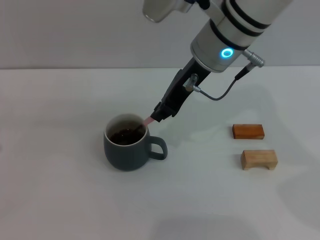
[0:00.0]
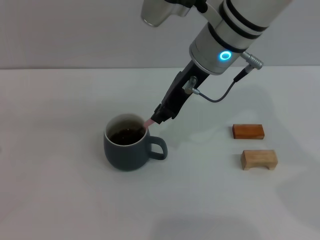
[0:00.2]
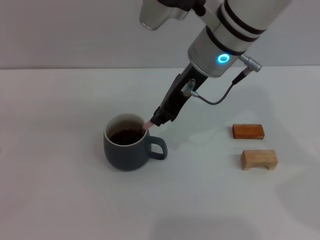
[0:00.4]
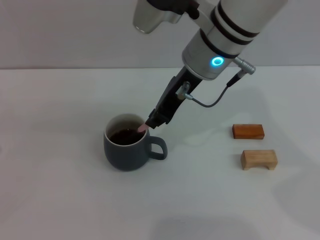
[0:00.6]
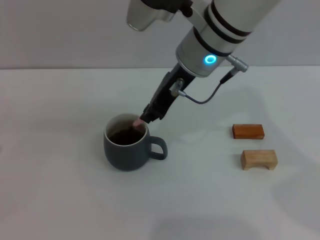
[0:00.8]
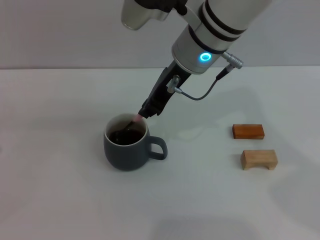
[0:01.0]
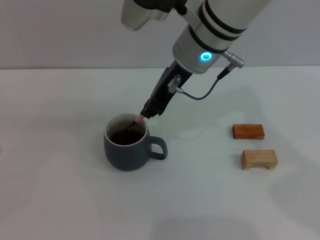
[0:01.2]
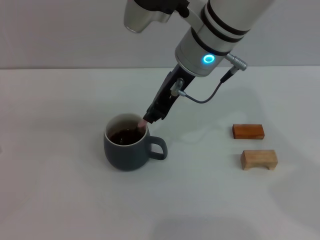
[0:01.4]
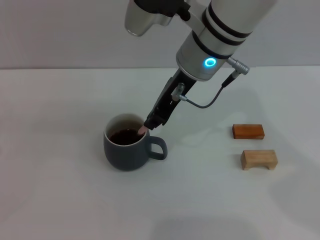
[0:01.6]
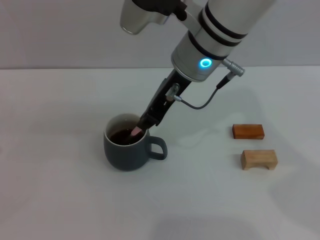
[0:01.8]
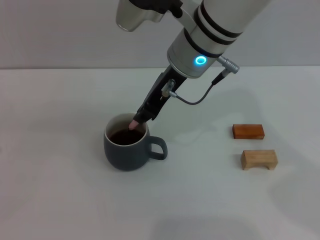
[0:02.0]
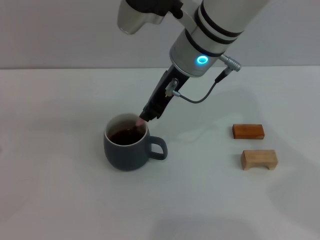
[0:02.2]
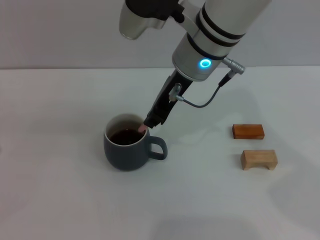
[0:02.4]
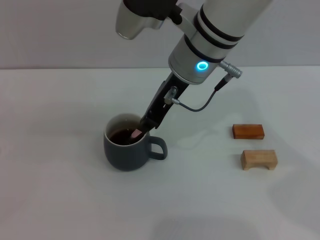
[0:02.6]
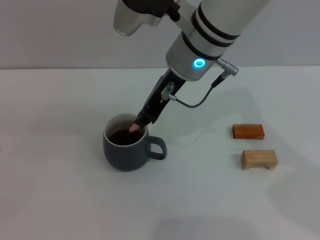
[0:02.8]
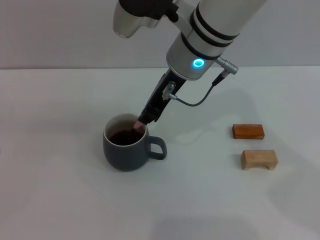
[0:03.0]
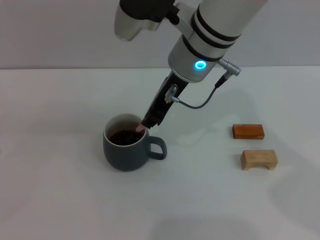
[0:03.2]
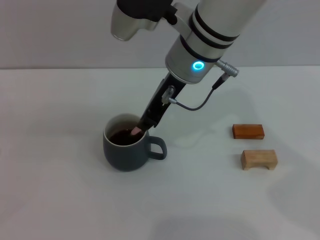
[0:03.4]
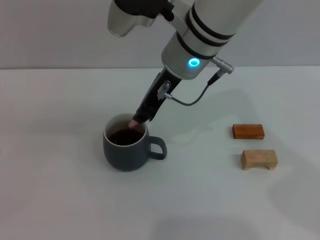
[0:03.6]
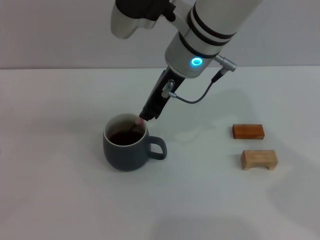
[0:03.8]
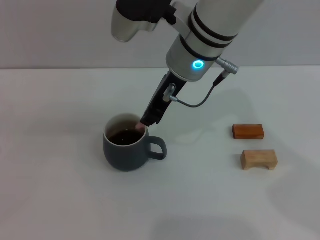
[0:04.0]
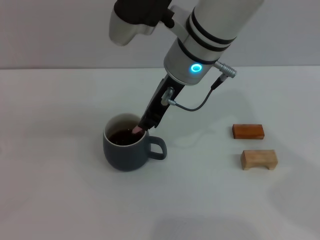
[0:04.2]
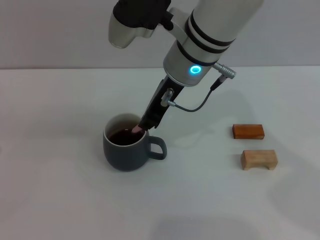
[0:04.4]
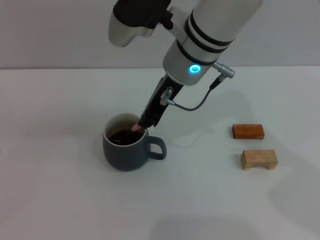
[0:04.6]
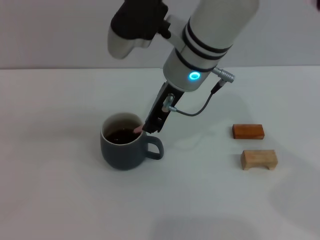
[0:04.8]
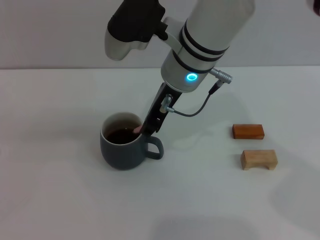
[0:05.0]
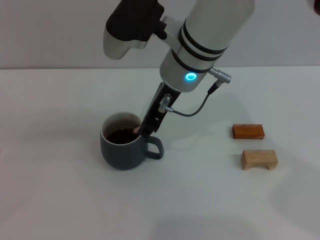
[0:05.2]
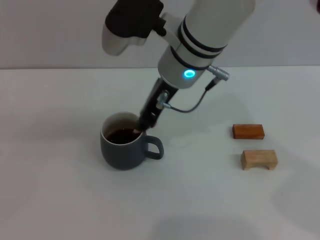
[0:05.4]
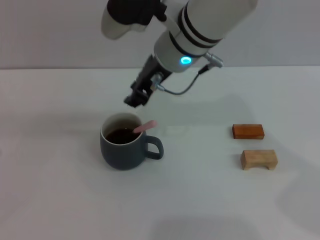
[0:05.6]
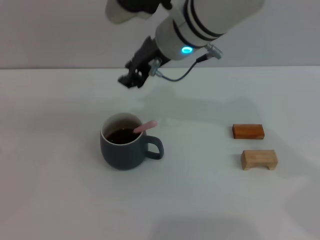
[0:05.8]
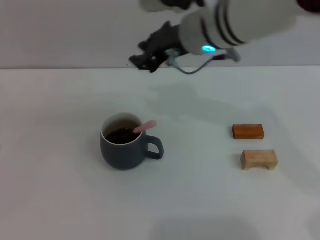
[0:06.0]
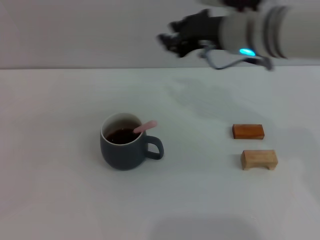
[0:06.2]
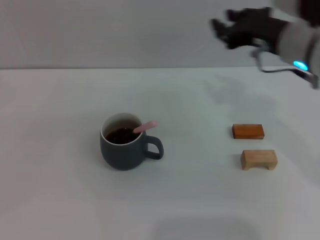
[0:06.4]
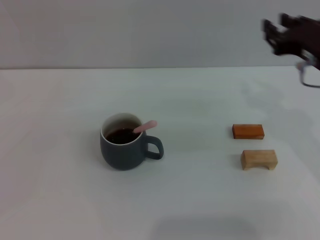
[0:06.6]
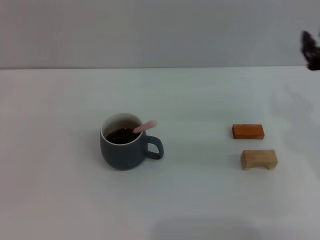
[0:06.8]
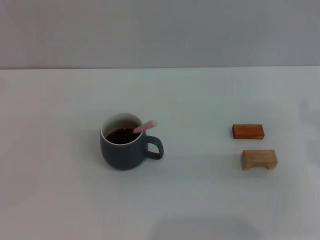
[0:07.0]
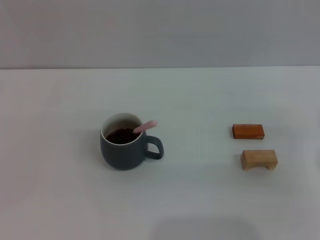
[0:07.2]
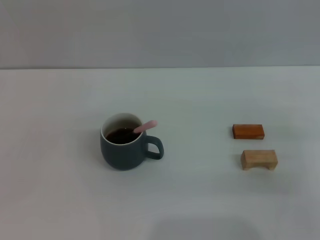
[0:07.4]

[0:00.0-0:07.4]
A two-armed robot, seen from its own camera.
Task of the whole recording: Move the grey cup to the center, lift the pink spoon, stir it three times in the cup, and put the spoon into the cup.
Step, 0:00.0 to 0:05.8: Stir the coffee in the cup with the right gripper.
0:00.0 to 0:01.4: There are only small adjustments of the grippers.
0:01.4 to 0:03.0: Both grippers stay put.
0:03.0 to 0:04.4: The two grippers keep their place.
0:06.0 to 0:07.4: The right gripper shifts approximately 30 cm to the right, backward and downward.
